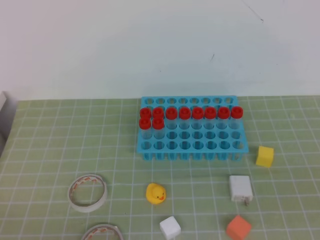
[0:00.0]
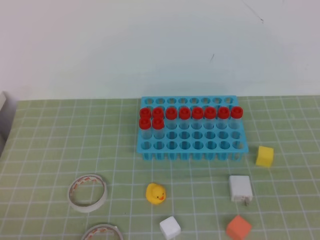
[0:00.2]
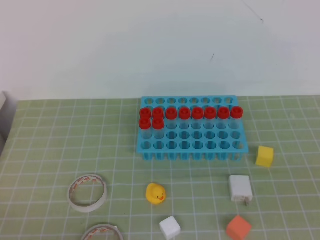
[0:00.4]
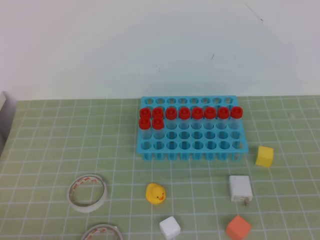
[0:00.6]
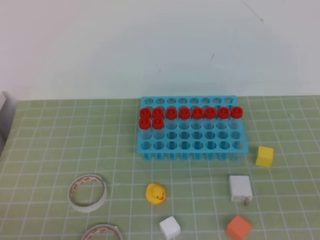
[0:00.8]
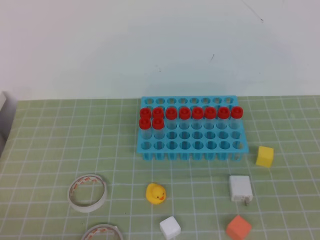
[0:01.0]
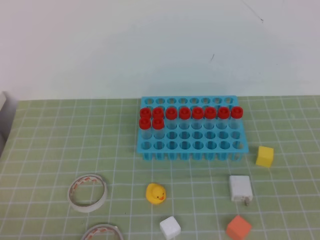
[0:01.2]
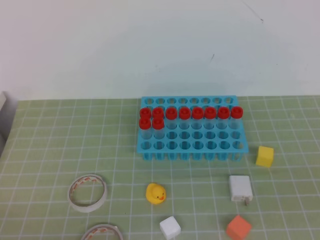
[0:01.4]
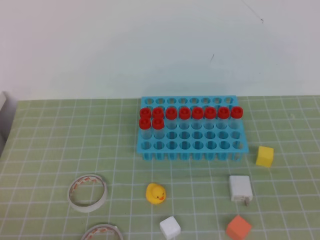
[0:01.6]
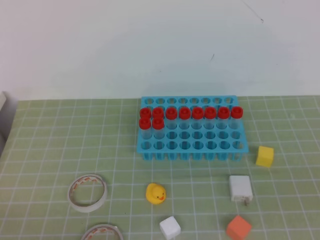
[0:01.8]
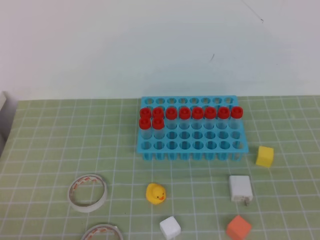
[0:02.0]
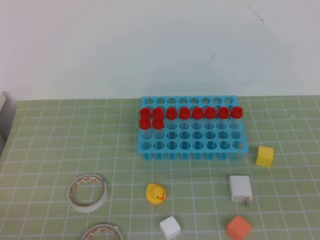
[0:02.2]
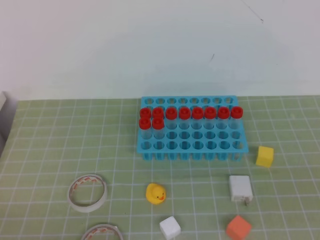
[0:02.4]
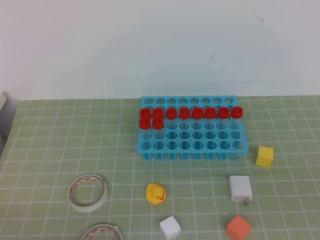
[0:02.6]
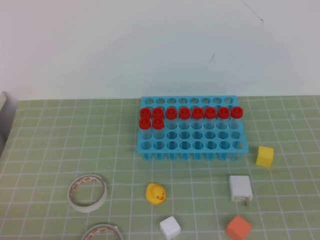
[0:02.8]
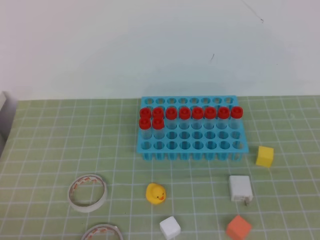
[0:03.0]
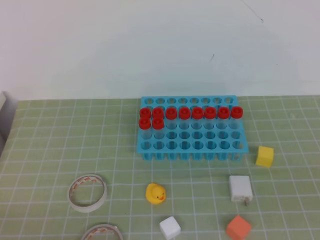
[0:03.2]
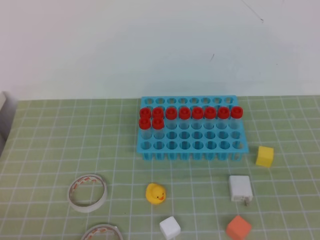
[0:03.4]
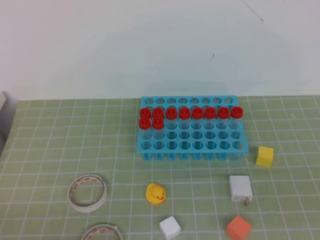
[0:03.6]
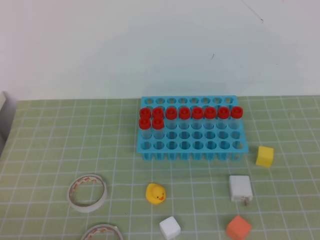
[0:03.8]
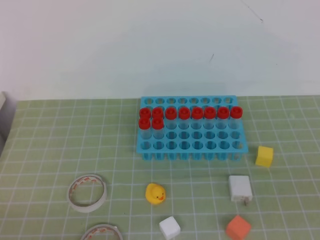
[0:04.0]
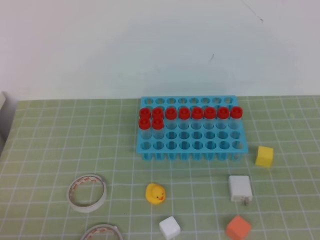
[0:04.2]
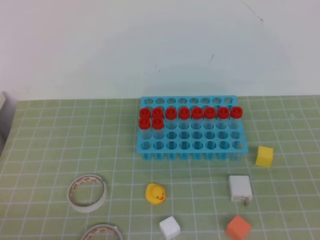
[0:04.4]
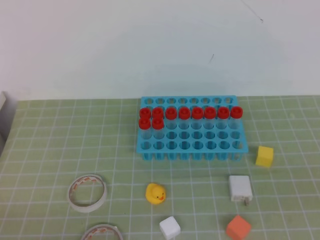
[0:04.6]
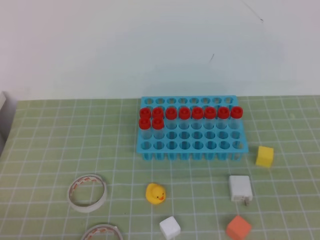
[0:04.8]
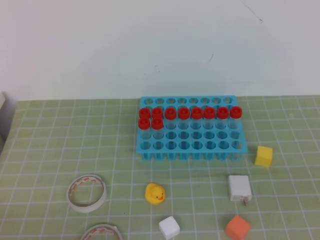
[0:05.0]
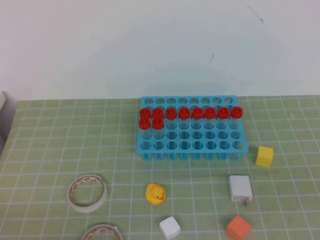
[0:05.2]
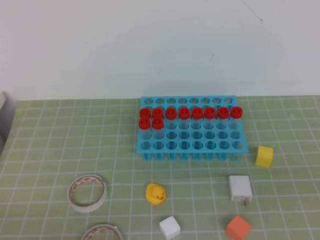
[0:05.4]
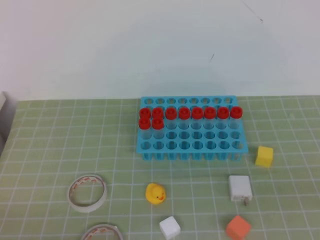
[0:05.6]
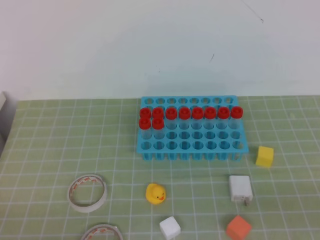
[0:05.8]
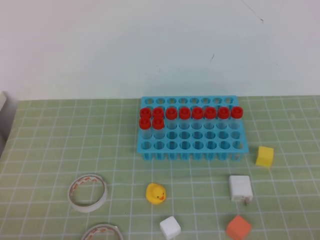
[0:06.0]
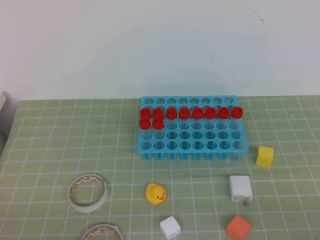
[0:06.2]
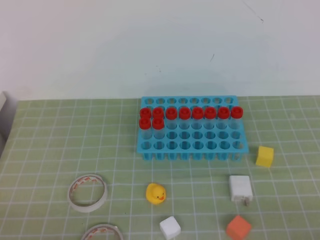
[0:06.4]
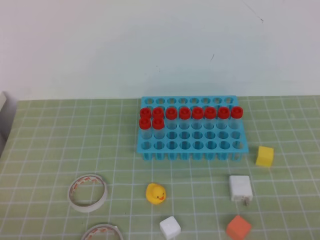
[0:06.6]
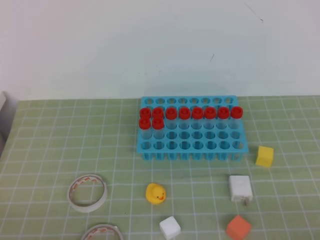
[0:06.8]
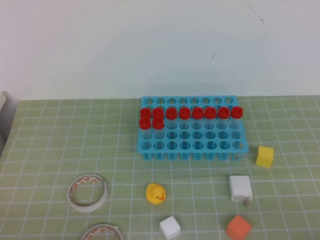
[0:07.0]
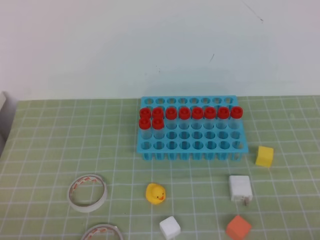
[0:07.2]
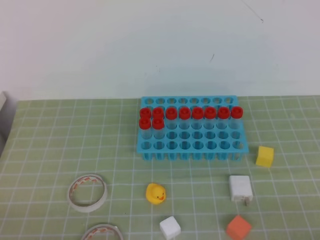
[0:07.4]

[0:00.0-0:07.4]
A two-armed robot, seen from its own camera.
0:01.4 to 0:03.0: The two grippers keep their place.

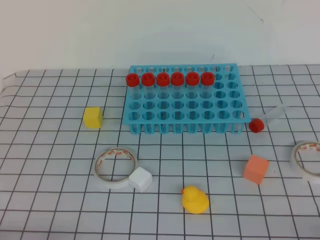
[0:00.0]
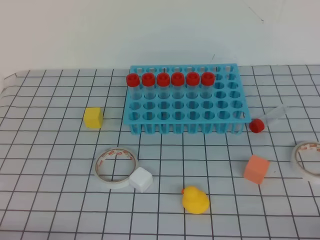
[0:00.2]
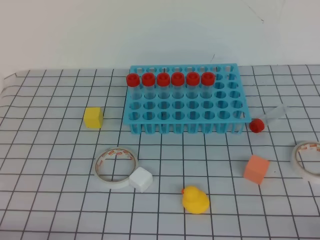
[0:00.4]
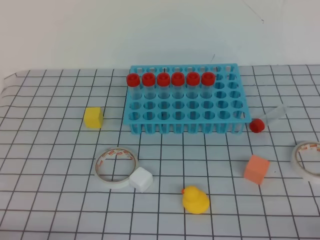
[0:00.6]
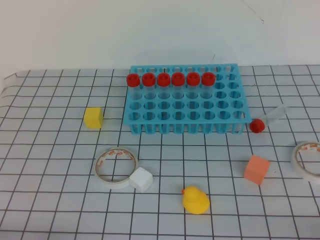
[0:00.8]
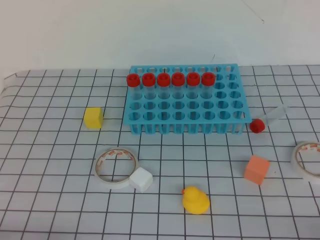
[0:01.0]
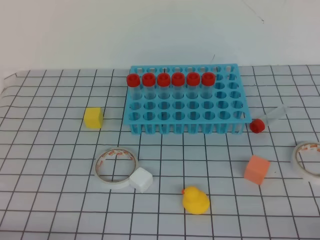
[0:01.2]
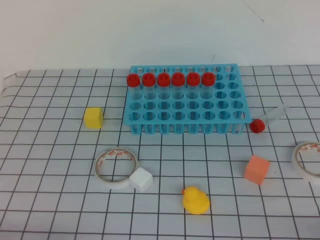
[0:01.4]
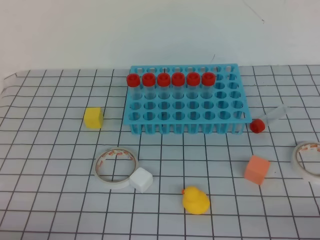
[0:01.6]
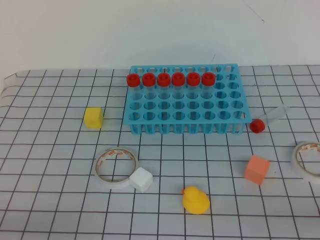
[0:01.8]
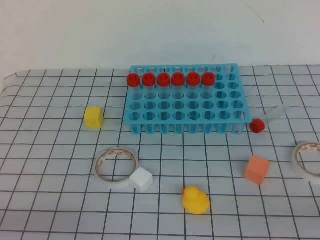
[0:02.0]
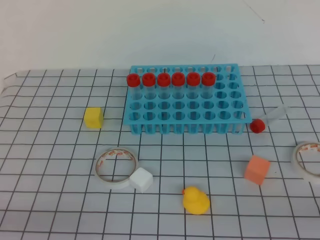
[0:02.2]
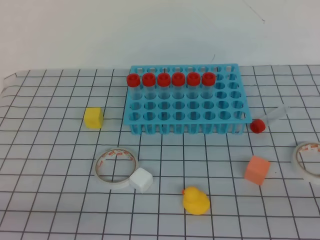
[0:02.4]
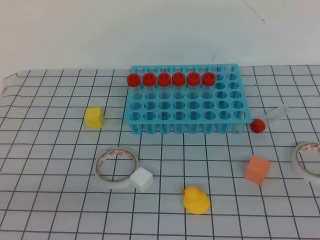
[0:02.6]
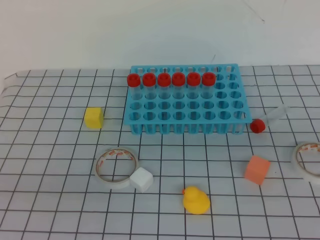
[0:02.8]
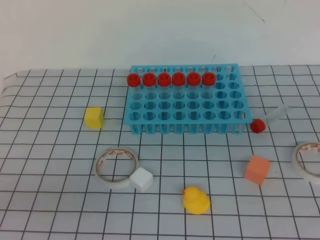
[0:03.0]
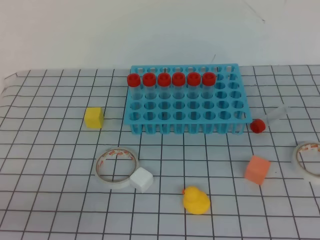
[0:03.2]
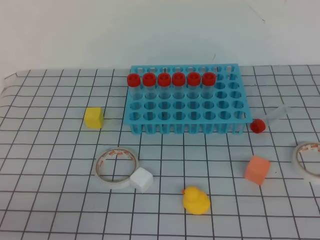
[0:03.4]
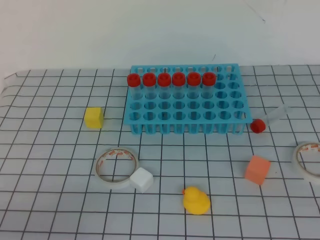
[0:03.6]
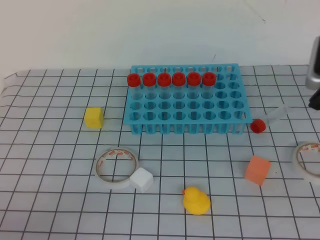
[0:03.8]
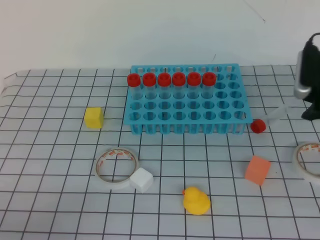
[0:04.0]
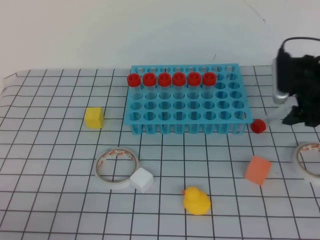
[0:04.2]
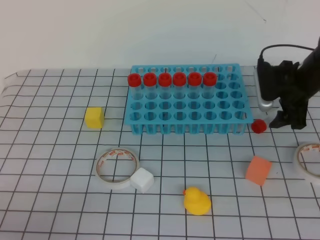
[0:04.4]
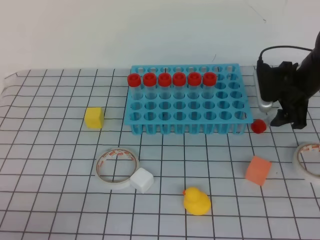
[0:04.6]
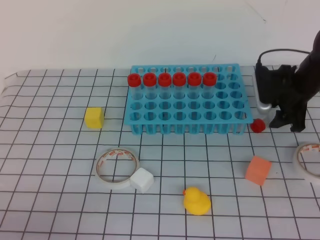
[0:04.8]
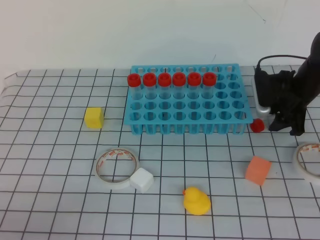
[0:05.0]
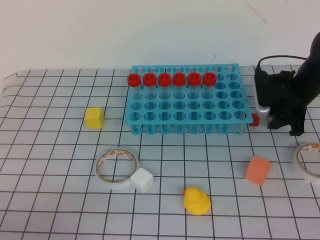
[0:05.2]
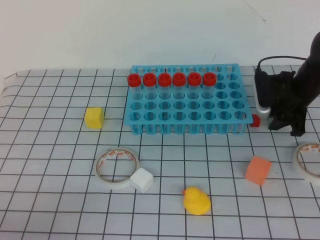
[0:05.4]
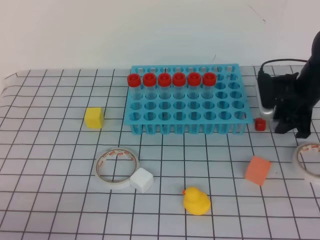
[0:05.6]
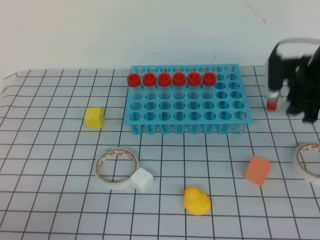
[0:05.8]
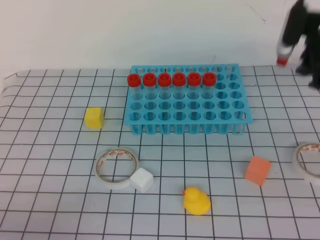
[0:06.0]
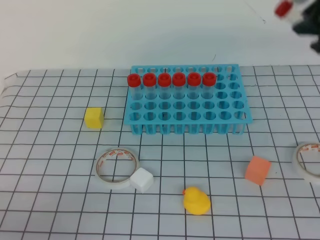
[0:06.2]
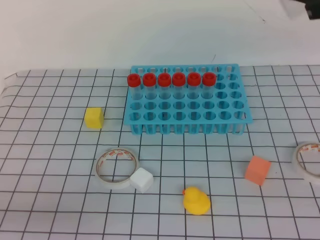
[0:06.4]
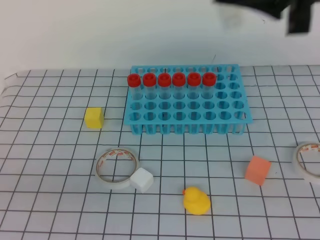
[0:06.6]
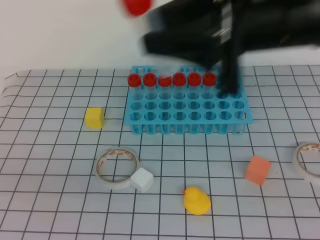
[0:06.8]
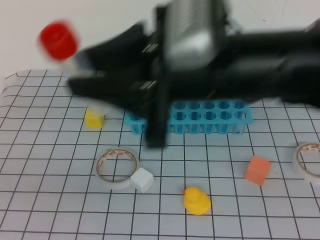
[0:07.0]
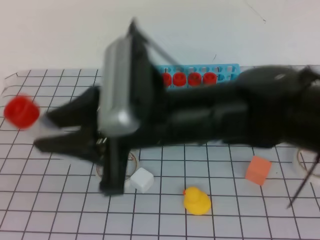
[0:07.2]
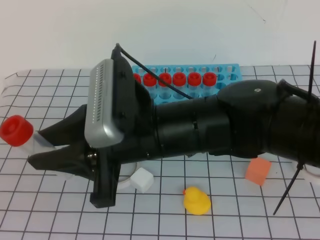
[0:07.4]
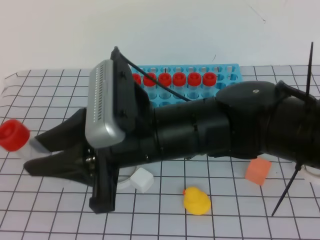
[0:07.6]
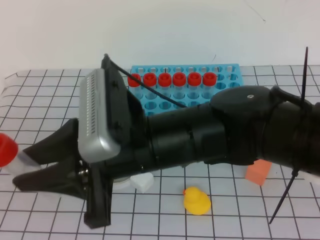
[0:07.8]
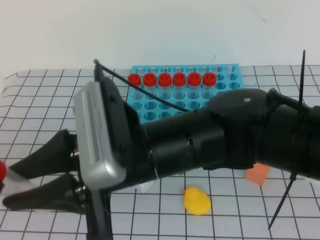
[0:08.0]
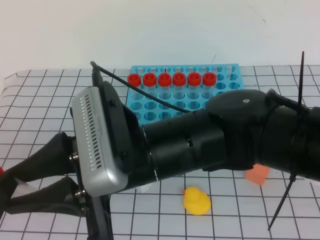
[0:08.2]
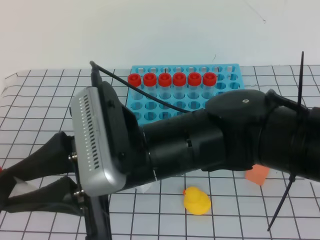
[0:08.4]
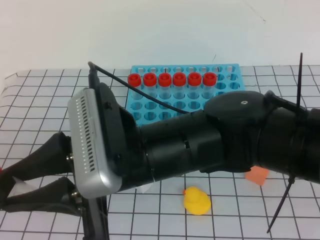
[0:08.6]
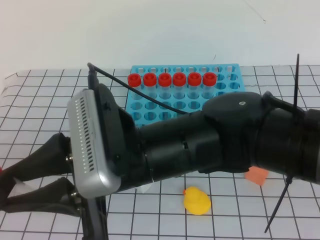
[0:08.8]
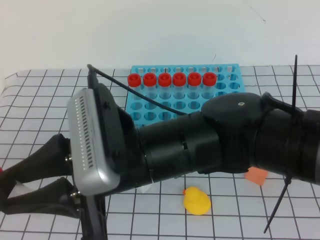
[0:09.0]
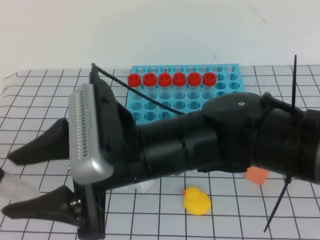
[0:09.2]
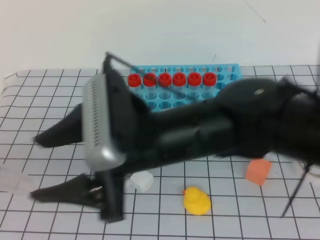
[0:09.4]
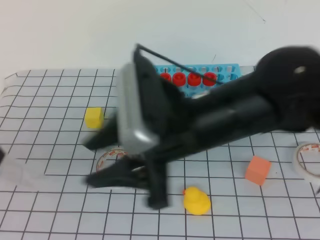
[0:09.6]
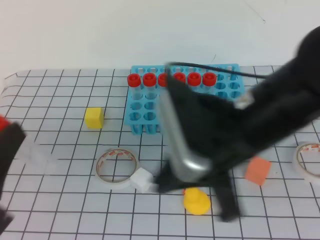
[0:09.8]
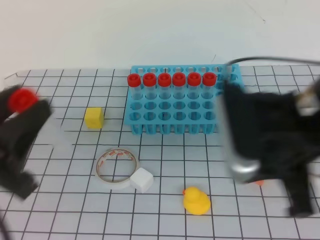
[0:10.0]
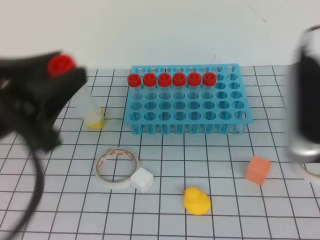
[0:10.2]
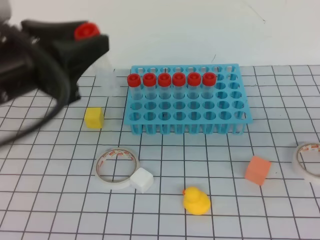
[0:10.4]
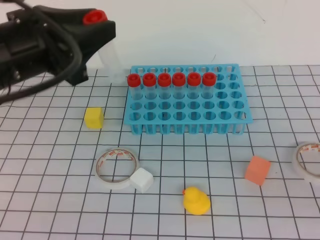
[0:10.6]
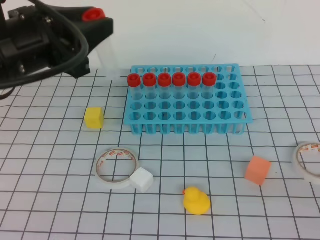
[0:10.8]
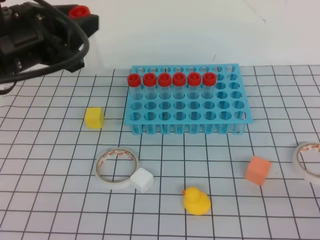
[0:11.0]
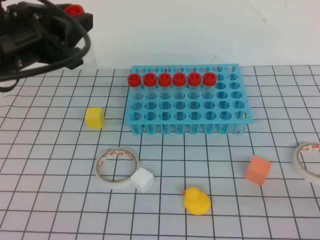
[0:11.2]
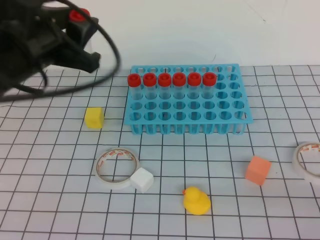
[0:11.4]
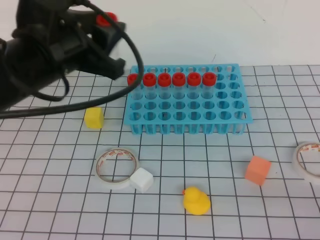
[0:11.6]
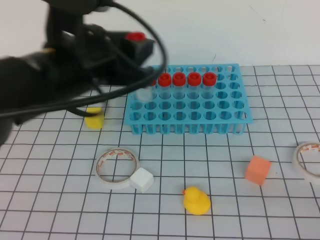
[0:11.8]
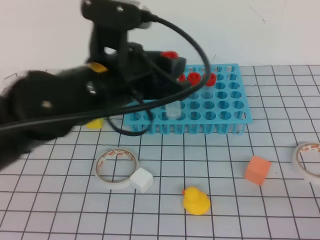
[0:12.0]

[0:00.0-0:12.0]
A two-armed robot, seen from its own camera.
0:01.6 to 0:03.0: The left gripper heads upward, covering about 10 cm.
0:03.0 to 0:04.4: The right gripper moves forward and downward, about 40 cm, and opens its fingers. The left gripper moves downward, about 5 cm.
0:04.4 to 0:06.0: The right gripper travels upward by roughly 10 cm, and closes up.
0:06.0 to 0:07.6: The right gripper travels to the left and backward by about 35 cm; the left gripper shifts some 10 cm upward, and opens its fingers.
0:09.0 to 0:10.4: The left gripper shifts some 15 cm forward; the right gripper goes about 25 cm to the right, and closes its fingers.
0:10.4 to 0:12.0: The left gripper travels to the right and forward by roughly 10 cm. Meanwhile the right gripper travels downward, backward and to the right by roughly 15 cm.

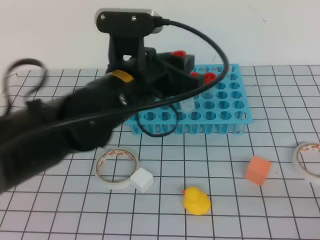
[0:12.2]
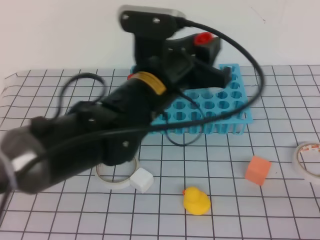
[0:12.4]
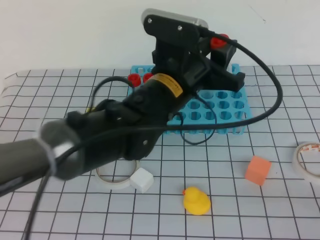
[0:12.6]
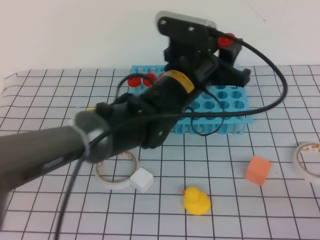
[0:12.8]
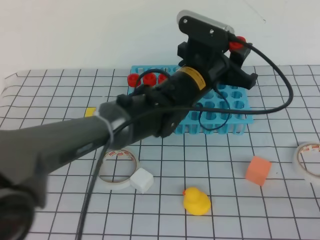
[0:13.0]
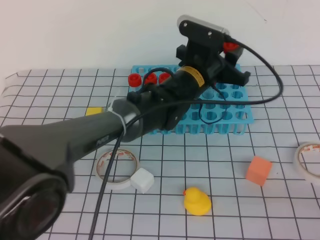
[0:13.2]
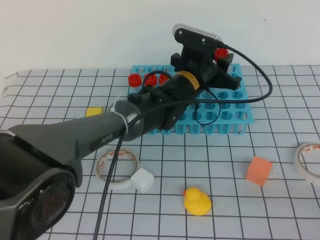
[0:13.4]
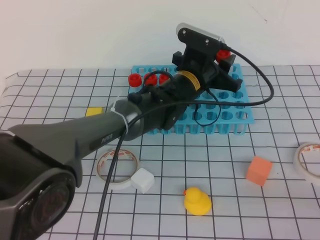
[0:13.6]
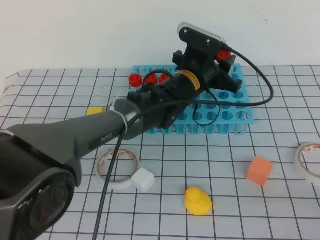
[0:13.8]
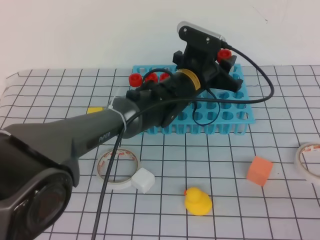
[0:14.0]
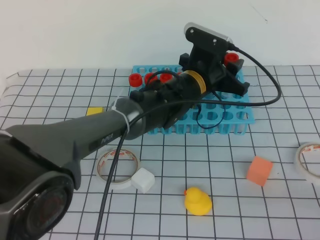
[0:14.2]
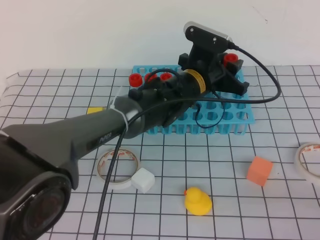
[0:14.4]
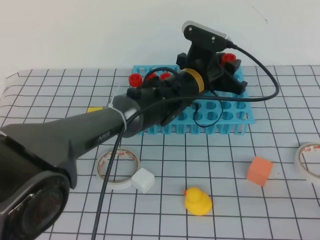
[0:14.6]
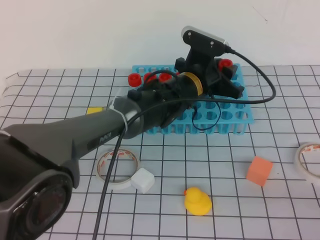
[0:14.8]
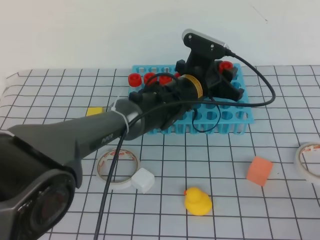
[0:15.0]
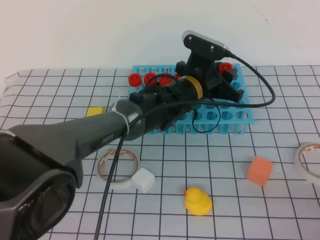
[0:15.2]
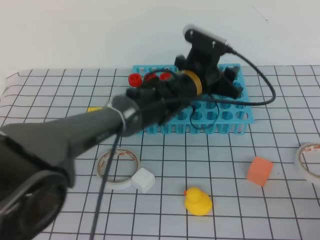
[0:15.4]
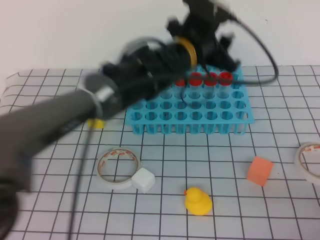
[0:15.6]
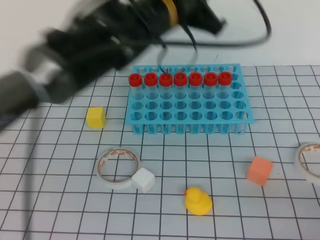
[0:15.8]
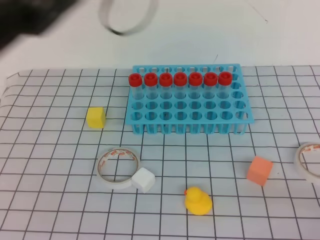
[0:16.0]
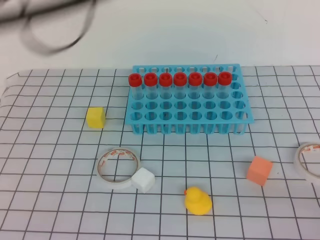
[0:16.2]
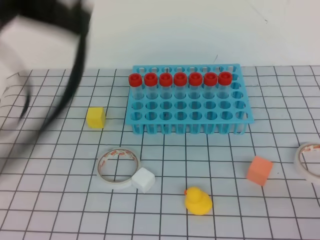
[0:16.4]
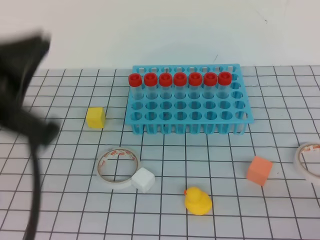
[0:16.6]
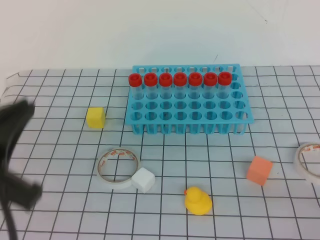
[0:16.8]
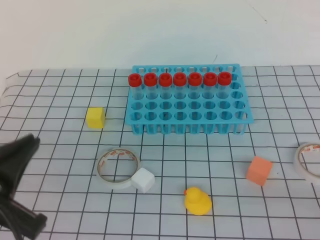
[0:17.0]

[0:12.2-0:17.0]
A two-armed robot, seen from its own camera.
0:12.2 to 0:13.8: The left gripper heads forward, downward and to the right, covering some 20 cm.
0:13.8 to 0:15.4: The grippers stay close to where they were, moving slightly.
0:15.4 to 0:17.0: The left gripper heads backward and to the left, covering some 40 cm, and closes.
